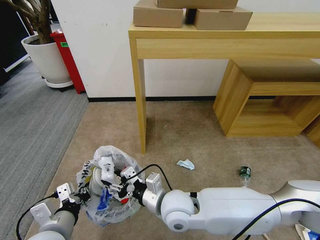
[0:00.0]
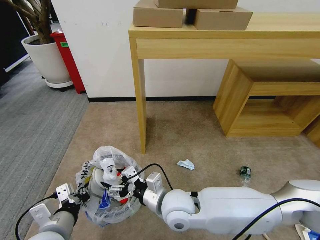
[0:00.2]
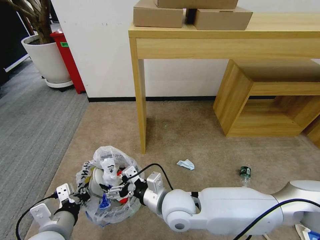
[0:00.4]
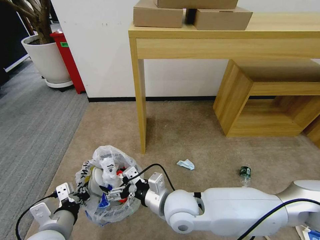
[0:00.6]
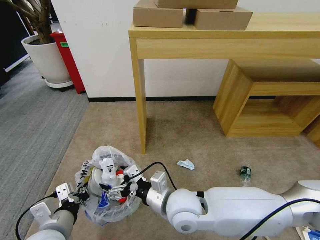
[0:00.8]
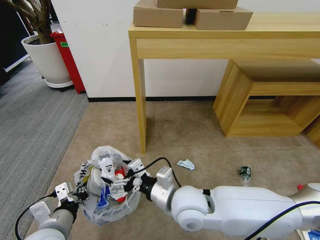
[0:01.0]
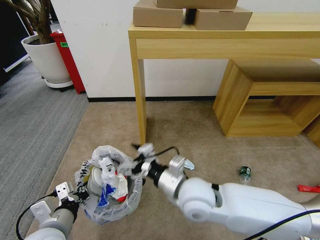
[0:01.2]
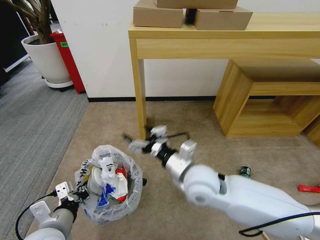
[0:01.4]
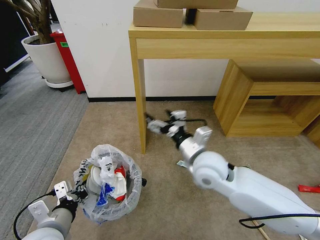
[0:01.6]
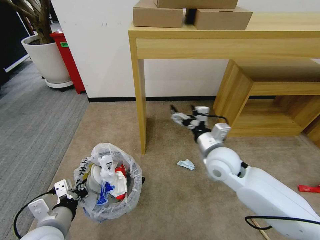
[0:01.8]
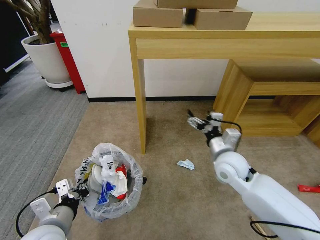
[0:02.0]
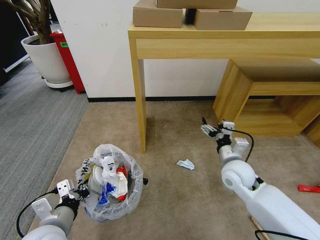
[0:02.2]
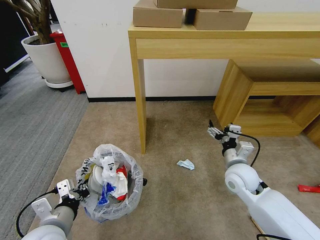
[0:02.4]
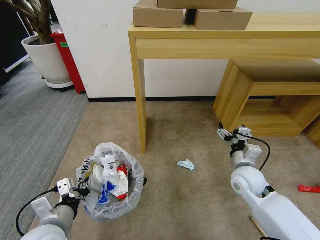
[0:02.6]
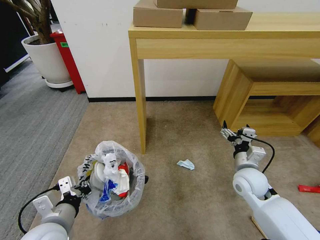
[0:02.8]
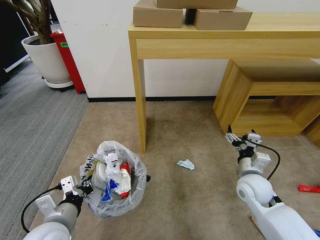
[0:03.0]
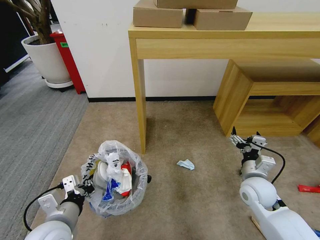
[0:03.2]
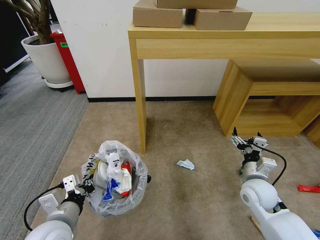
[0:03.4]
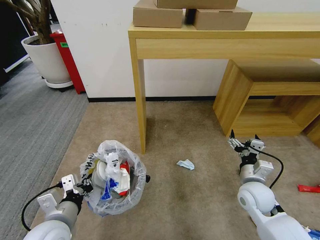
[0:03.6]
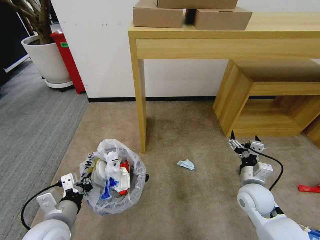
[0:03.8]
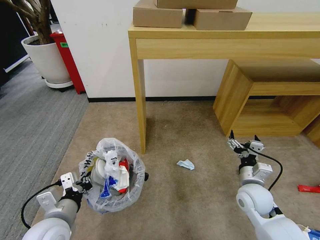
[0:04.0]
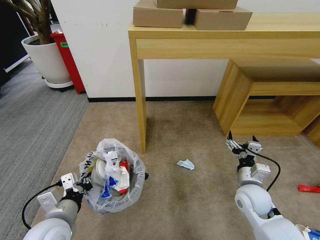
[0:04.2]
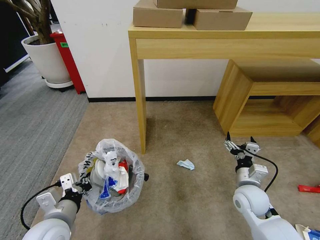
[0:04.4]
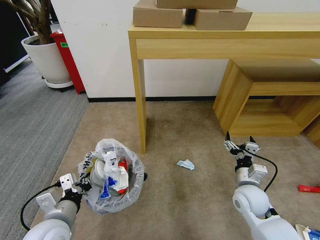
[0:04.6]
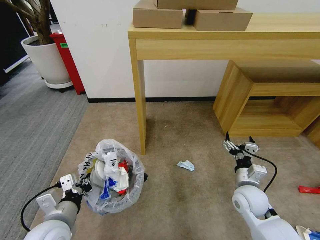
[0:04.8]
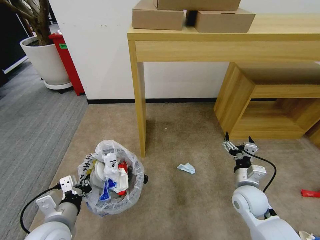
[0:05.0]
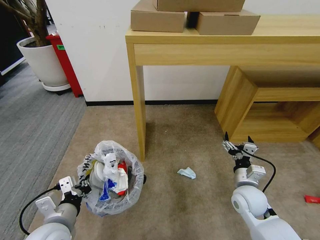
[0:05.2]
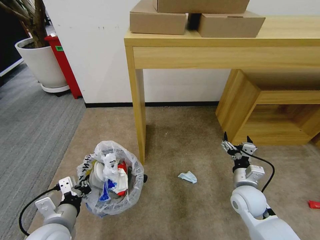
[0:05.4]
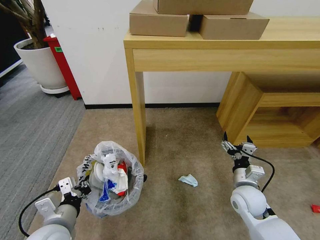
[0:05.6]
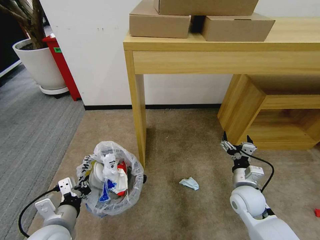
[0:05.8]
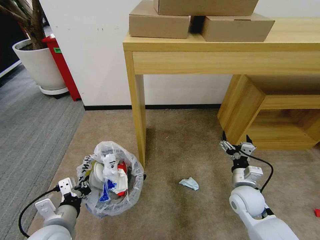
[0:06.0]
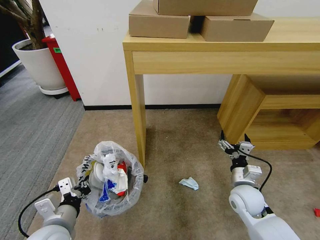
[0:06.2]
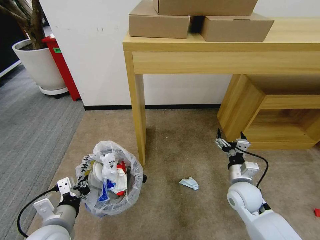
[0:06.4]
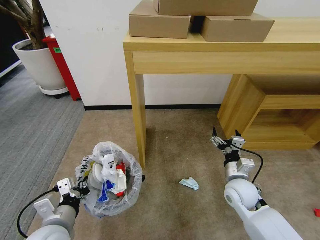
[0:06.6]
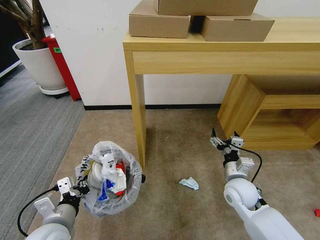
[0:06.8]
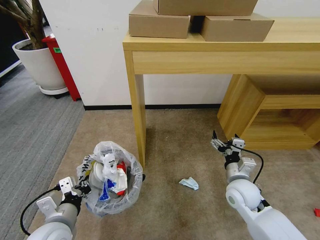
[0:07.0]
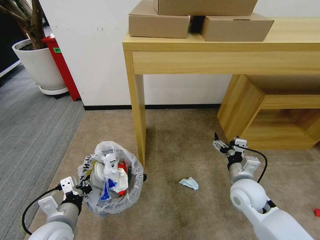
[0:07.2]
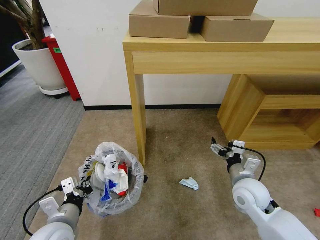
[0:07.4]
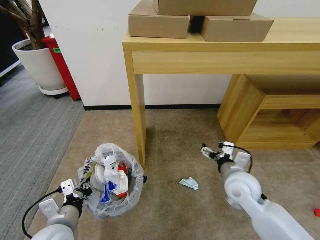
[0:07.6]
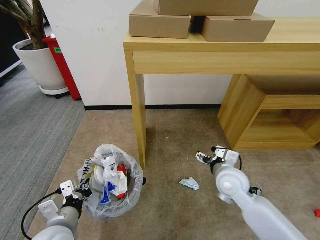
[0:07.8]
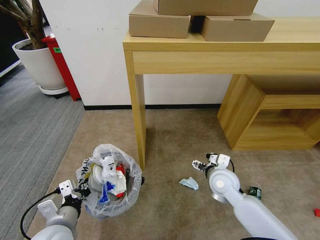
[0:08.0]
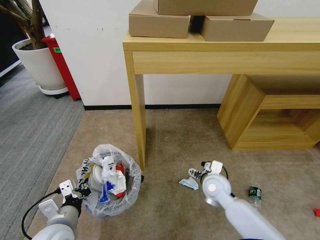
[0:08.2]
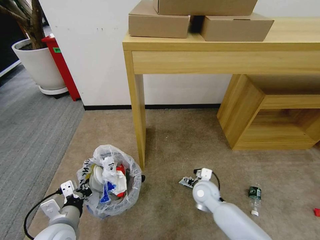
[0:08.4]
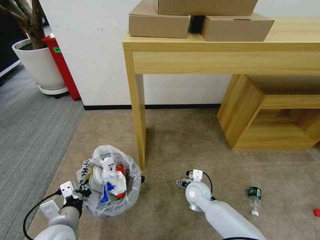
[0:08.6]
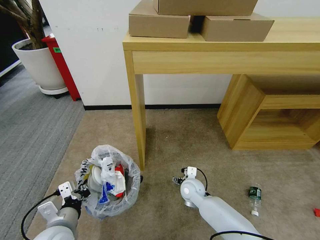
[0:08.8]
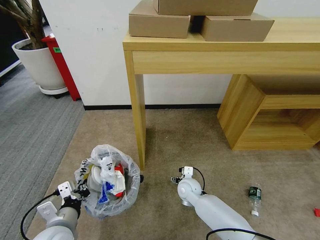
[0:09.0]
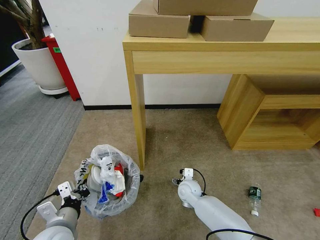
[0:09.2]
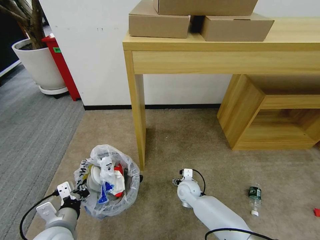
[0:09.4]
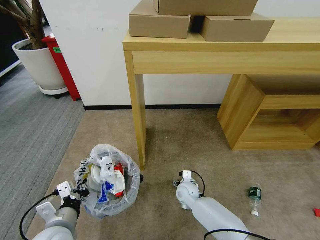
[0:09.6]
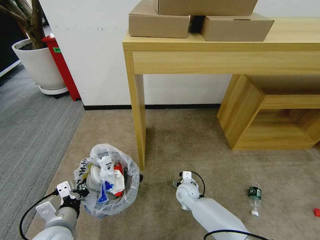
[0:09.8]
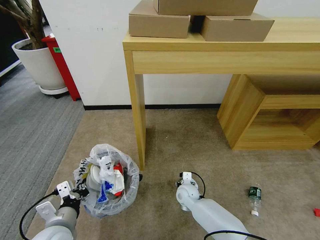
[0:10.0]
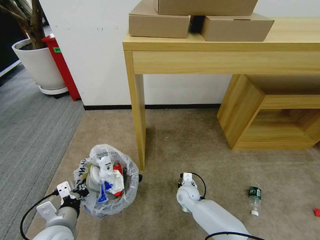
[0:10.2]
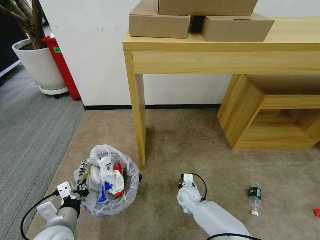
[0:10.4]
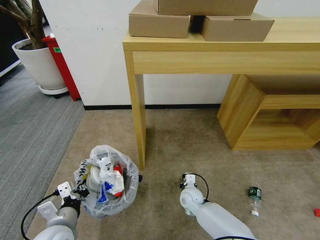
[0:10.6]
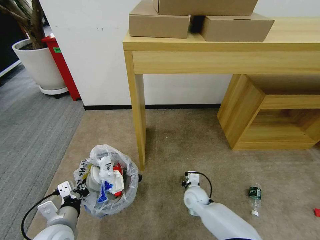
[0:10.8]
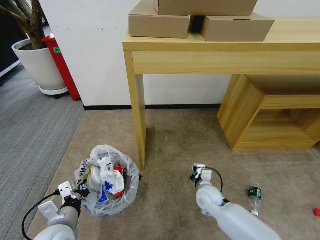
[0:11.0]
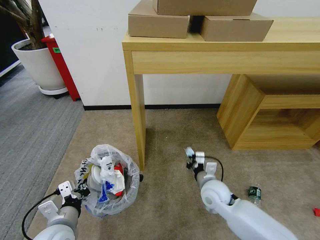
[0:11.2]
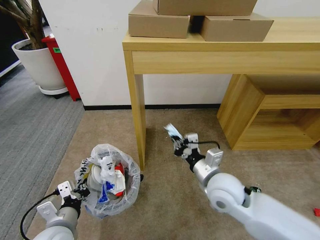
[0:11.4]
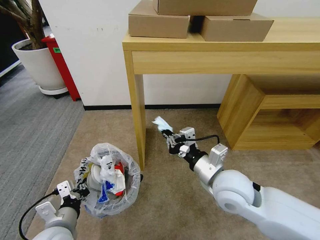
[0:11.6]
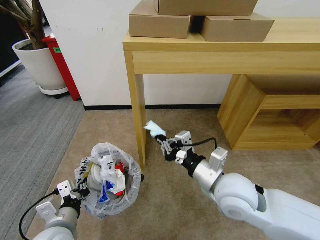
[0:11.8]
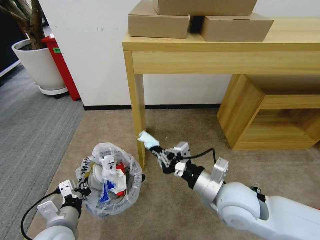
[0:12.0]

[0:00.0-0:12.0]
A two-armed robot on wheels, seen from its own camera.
Task of the whole recording: Pick up the trash bin and place the garbage on the floor into it.
0:00.0 to 0:01.6: The right gripper travels to the right, forward and upward by about 15 cm, and opens up.
0:01.6 to 0:03.0: The right gripper moves to the right and downward, approximately 20 cm.
0:03.0 to 0:04.4: The grippers make only small movements.
0:06.0 to 0:07.6: The right gripper moves upward, about 5 cm.
0:07.6 to 0:09.0: The right gripper shifts roughly 20 cm downward, to the left and forward.
0:09.0 to 0:10.4: The right gripper moves some 5 cm, and closes its fingers.
0:10.4 to 0:12.0: The right gripper shifts about 30 cm upward and backward.

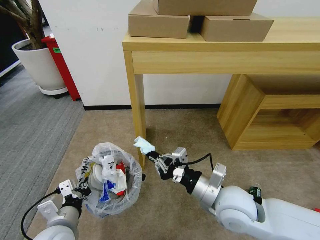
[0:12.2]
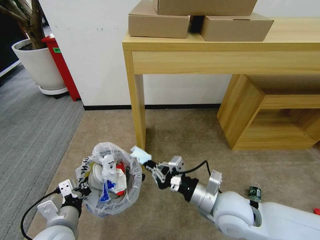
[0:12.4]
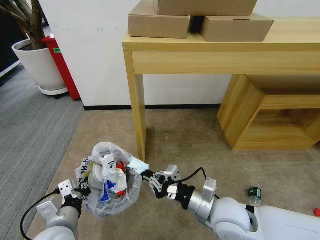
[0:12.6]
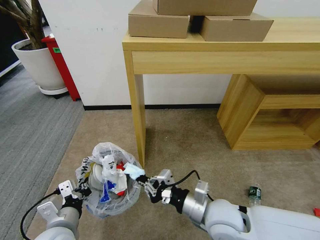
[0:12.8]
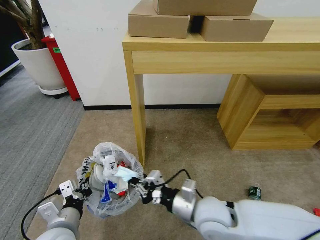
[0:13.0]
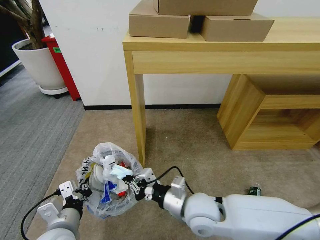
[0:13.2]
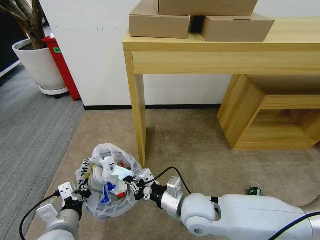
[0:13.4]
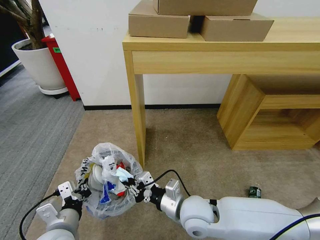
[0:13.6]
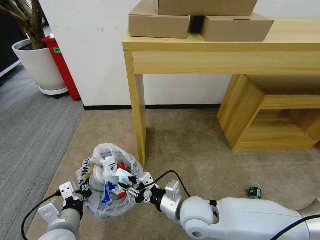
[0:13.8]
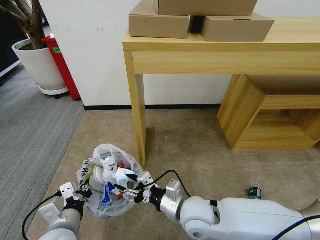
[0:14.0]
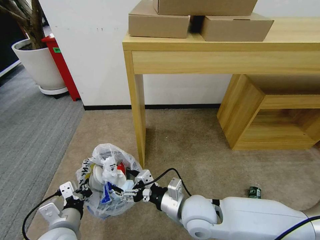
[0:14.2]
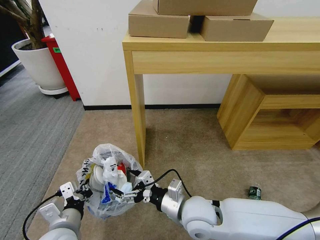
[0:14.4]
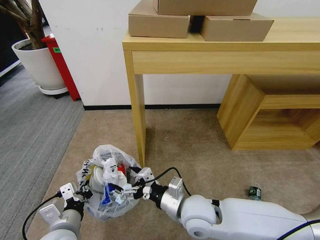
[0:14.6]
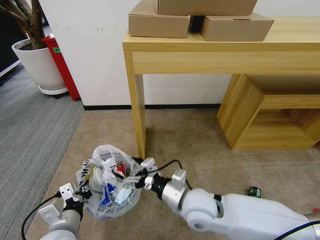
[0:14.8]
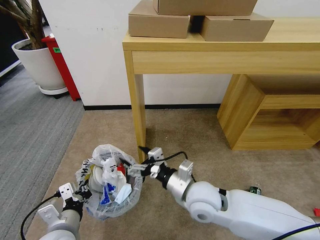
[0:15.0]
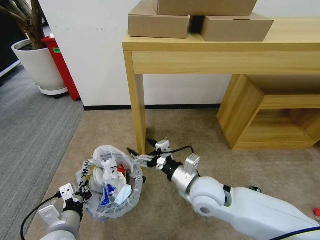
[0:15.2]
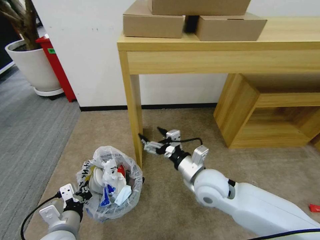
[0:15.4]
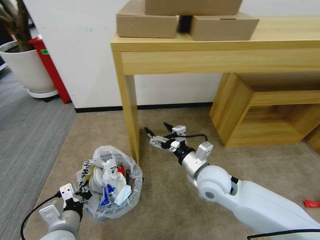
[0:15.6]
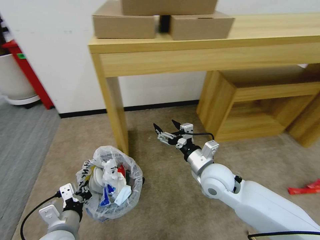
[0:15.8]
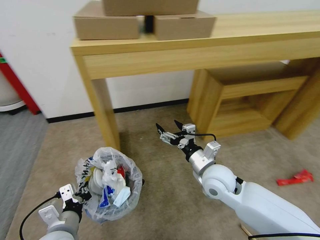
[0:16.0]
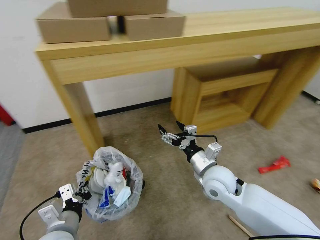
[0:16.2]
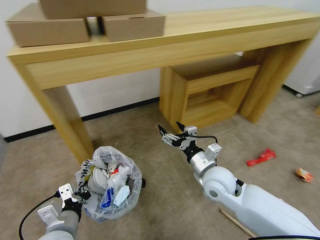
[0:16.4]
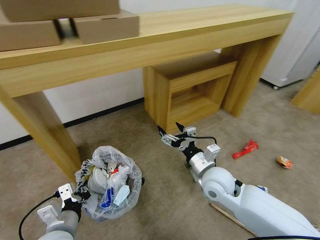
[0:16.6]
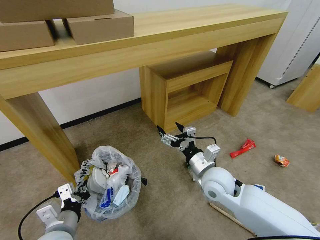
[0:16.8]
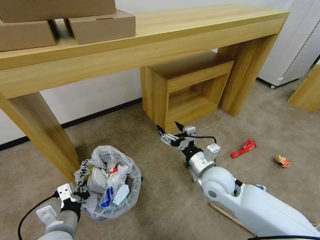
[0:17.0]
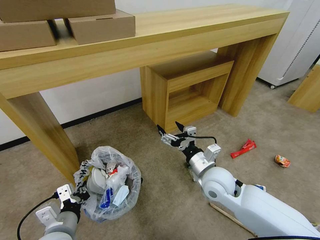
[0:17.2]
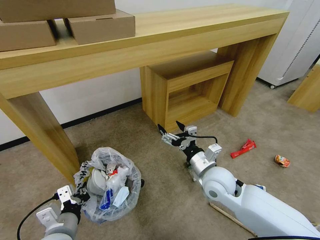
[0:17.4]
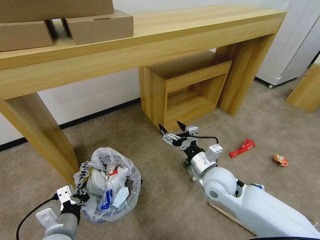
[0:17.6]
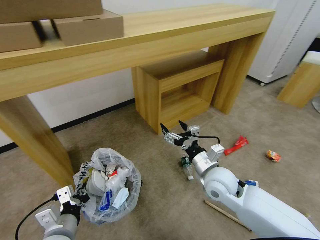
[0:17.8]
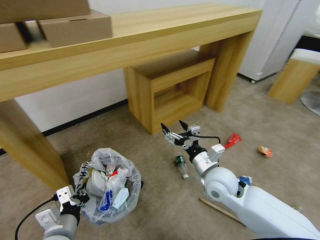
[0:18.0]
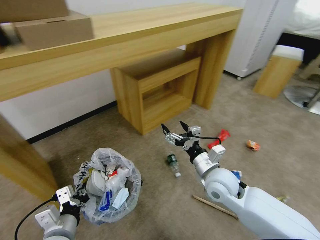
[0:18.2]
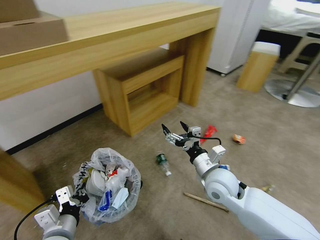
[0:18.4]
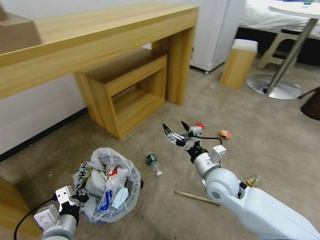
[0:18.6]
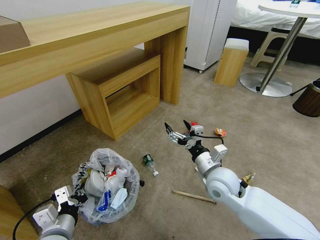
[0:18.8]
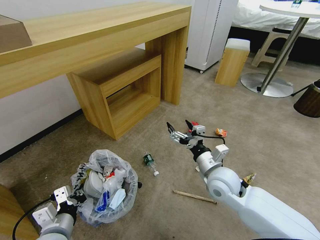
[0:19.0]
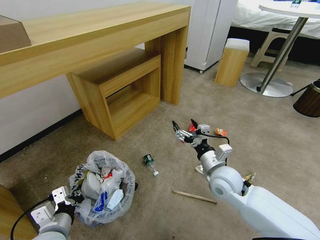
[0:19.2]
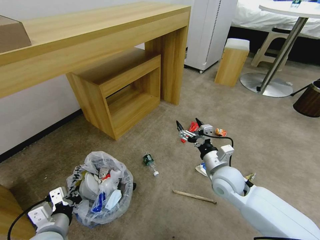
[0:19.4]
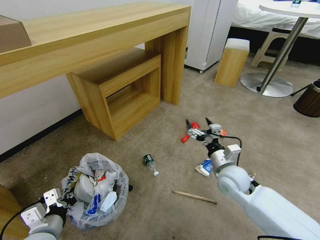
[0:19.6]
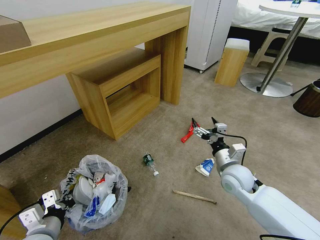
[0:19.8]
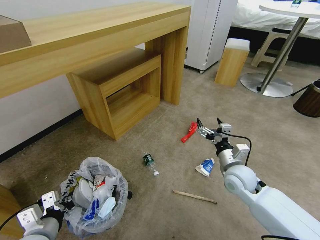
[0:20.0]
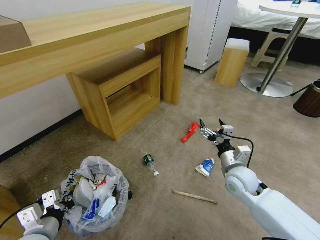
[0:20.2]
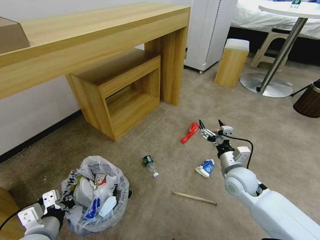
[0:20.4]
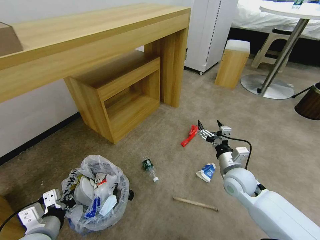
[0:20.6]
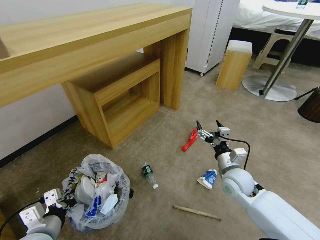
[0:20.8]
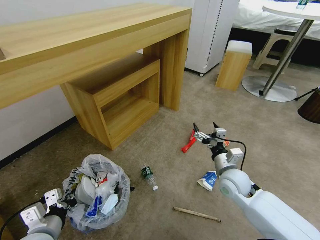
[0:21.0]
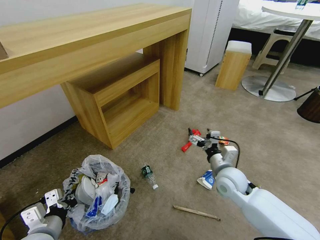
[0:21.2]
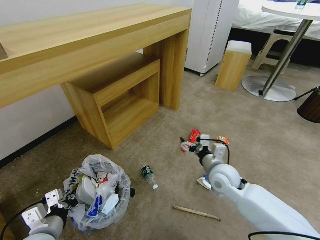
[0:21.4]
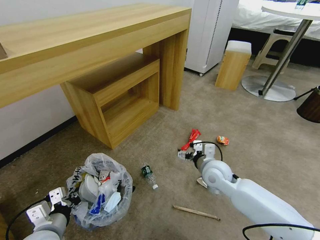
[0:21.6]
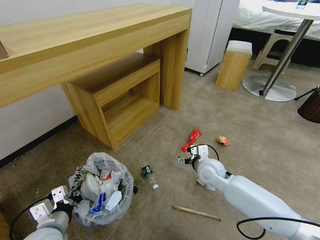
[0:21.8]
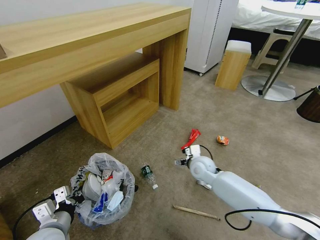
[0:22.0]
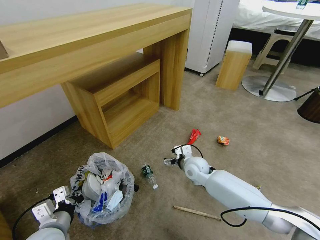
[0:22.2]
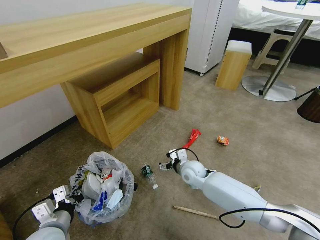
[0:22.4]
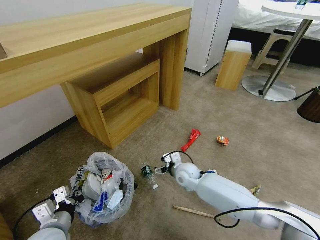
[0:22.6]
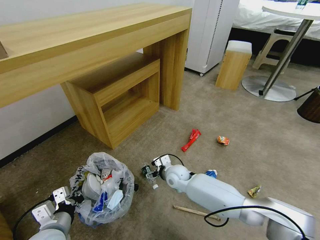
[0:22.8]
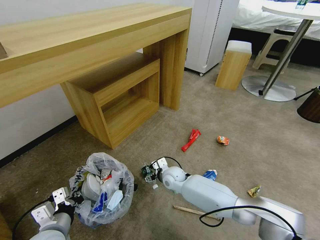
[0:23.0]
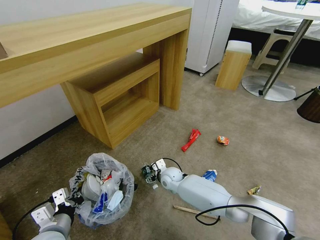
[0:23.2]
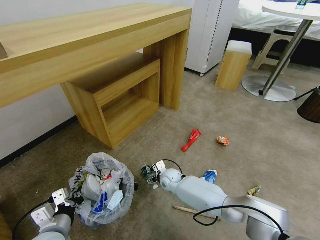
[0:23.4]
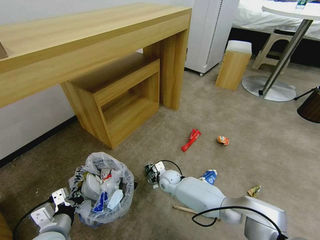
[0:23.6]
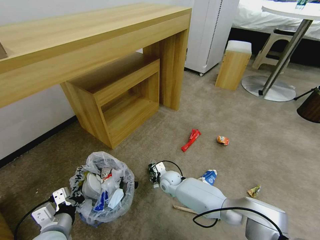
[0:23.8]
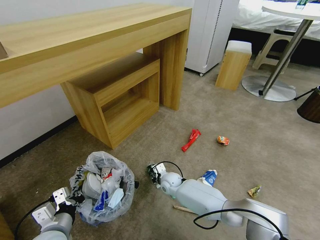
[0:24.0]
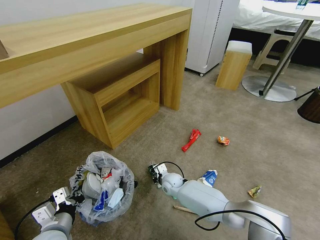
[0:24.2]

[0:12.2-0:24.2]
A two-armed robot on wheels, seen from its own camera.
Task of the whole recording: Pick up the trash bin and place the garbage on the floor into it.
0:12.2 to 0:13.8: The right gripper moves to the left and downward, some 10 cm, and opens.
0:13.8 to 0:15.2: The right gripper ends up some 5 cm from where it was, and opens.
0:15.2 to 0:16.6: The right gripper changes place by approximately 5 cm.
0:18.2 to 0:19.8: The right gripper shifts about 5 cm to the right.
0:21.2 to 0:22.6: The right gripper heads to the left, downward and forward, covering roughly 15 cm.
0:22.6 to 0:24.2: The right gripper shifts about 10 cm downward and to the left, and closes up.
